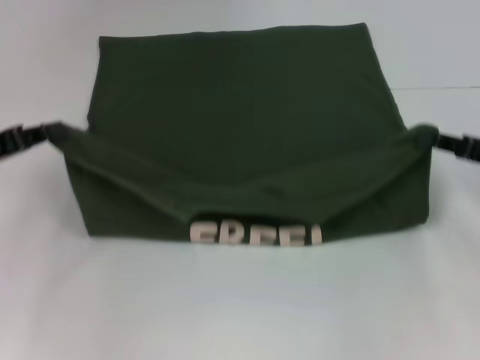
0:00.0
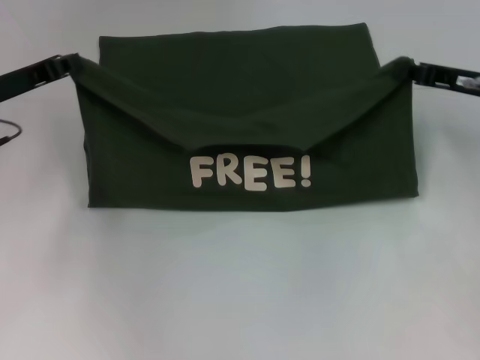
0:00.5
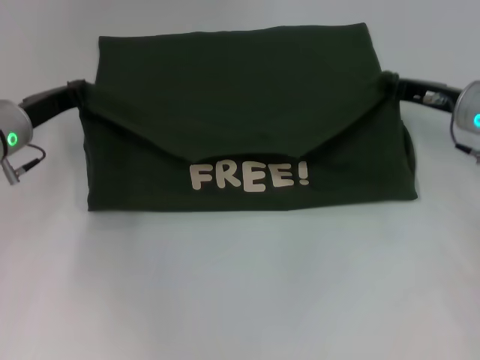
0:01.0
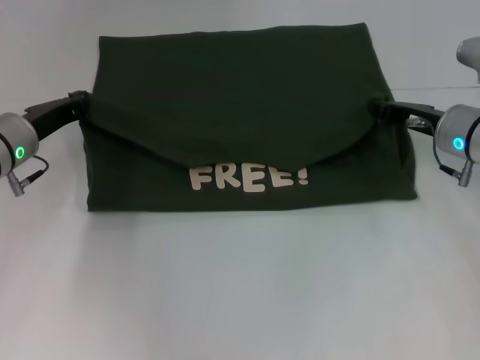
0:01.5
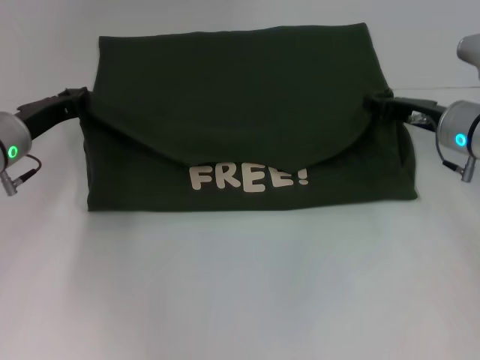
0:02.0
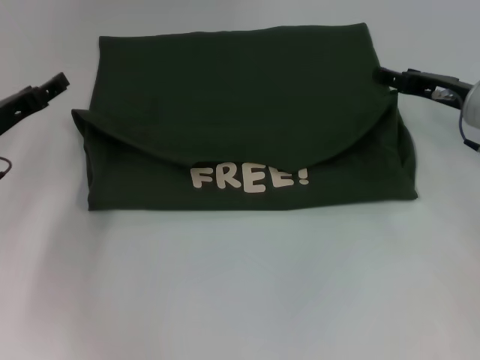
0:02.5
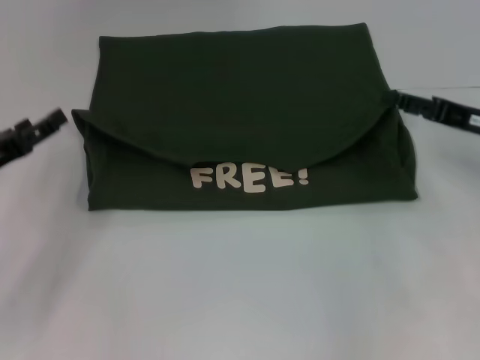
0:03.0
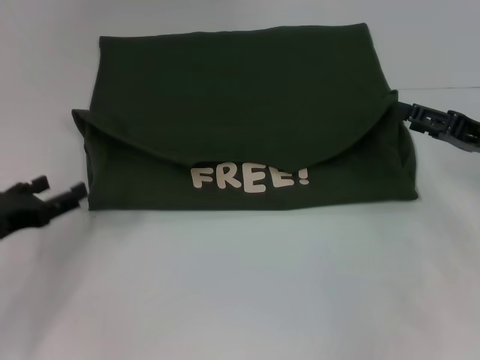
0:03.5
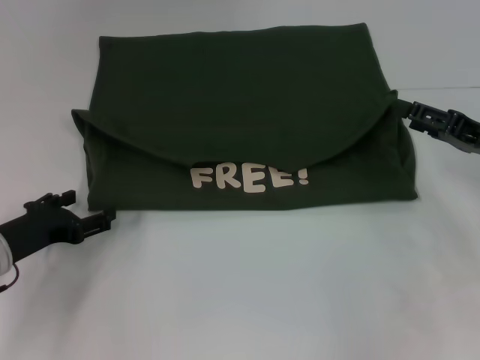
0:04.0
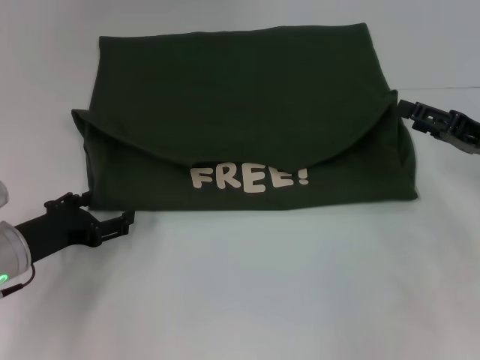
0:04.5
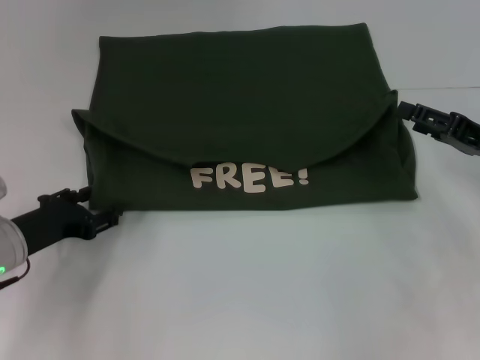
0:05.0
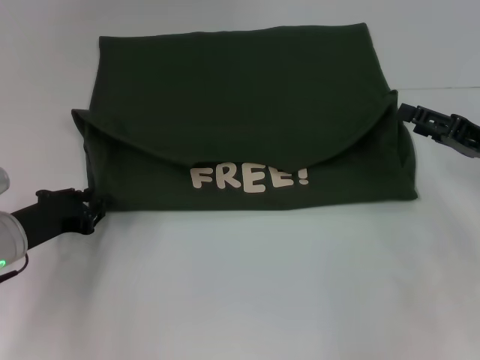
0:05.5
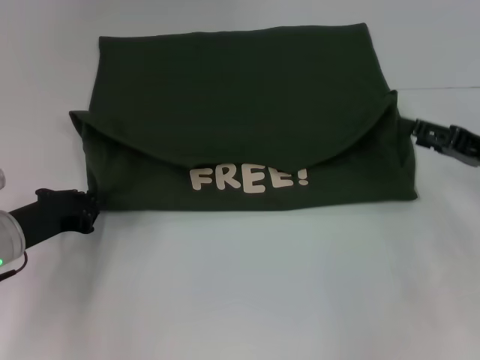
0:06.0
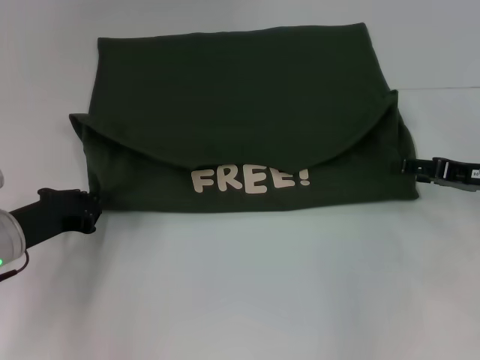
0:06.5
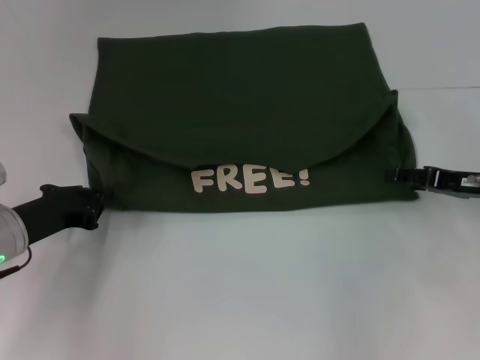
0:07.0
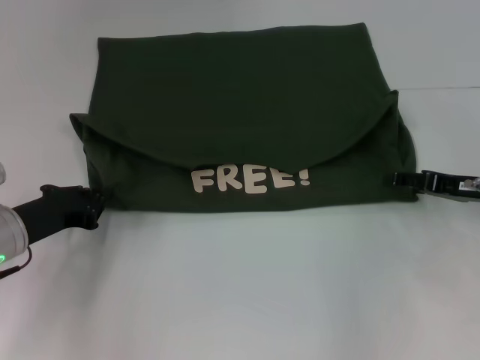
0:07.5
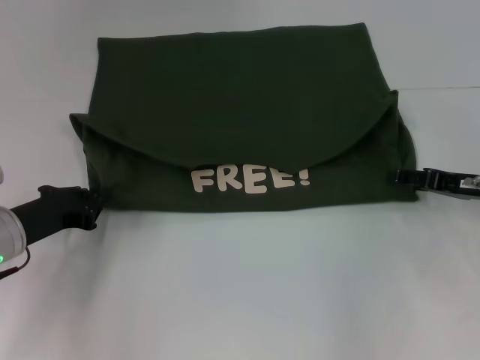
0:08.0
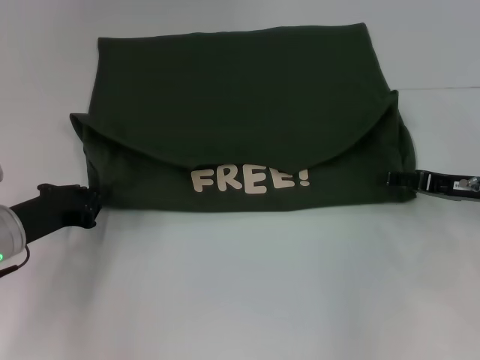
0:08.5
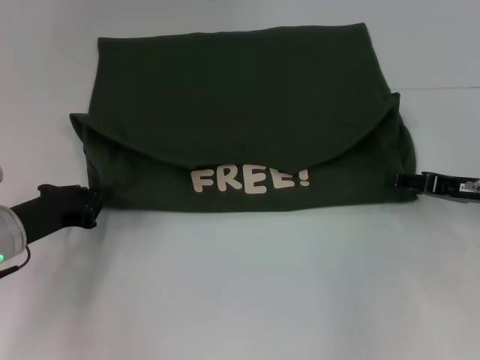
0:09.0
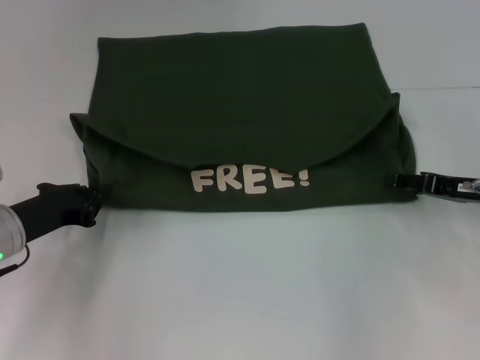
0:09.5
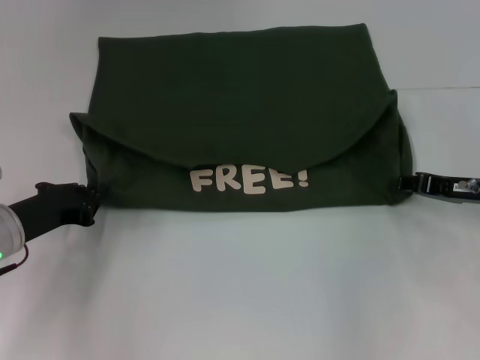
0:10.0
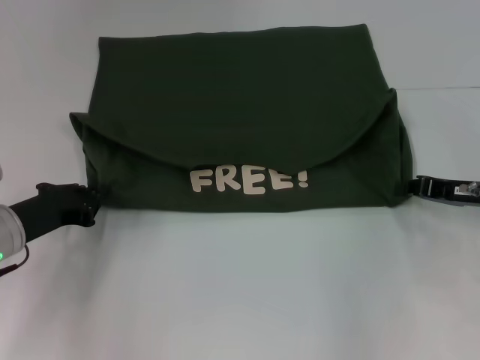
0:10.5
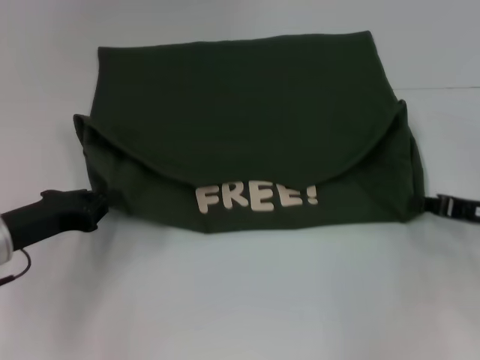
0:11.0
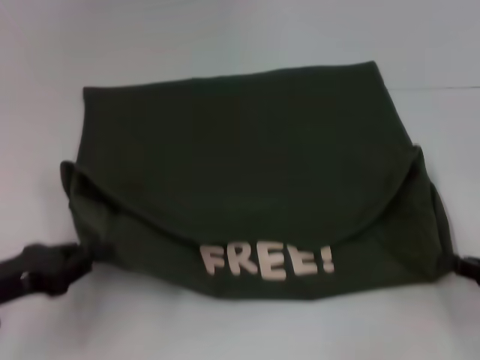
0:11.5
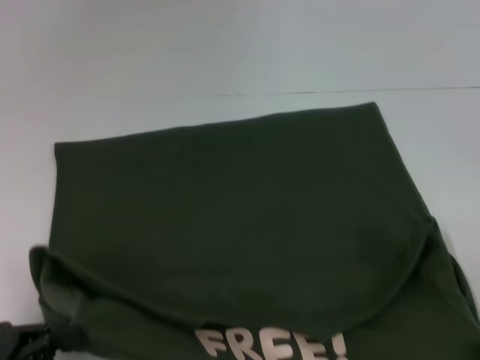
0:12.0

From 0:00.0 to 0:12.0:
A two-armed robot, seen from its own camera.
Step, from 0:00.0 to 0:02.0: Fold the clothes with your left hand.
Step, from 0:00.0 to 0:02.0: Fold the clothes with your right hand.
From 0:00.0 to 0:02.0: The left gripper moves forward and to the right, about 10 cm. Meanwhile the right gripper goes some 10 cm forward and to the left.
From 0:02.0 to 0:04.0: The left gripper goes approximately 10 cm backward, and opens its fingers; the right gripper shifts approximately 10 cm backward and to the right, and opens up.
From 0:04.0 to 0:06.0: The left gripper closes up.
From 0:06.0 to 0:08.0: The grippers move only a little.
From 0:08.0 to 0:10.0: The right gripper closes its fingers.
From 0:10.0 to 0:12.0: Both grippers travel together backward, some 20 cm. The right gripper closes.

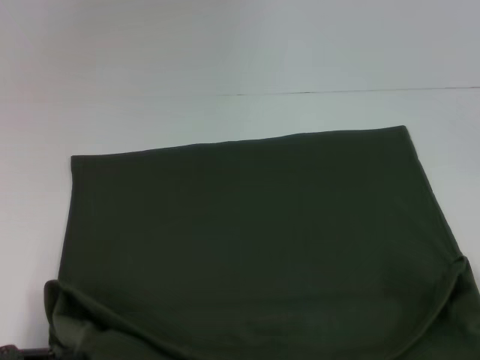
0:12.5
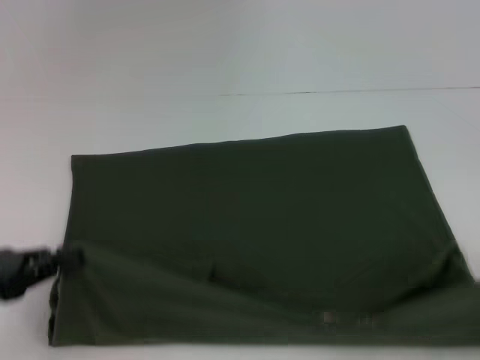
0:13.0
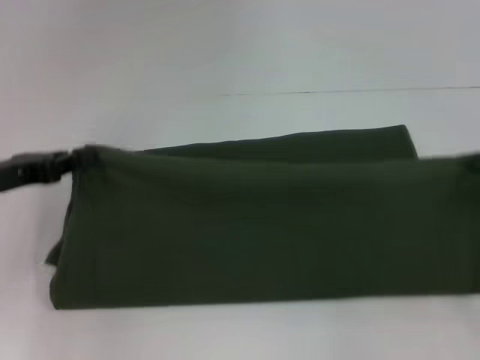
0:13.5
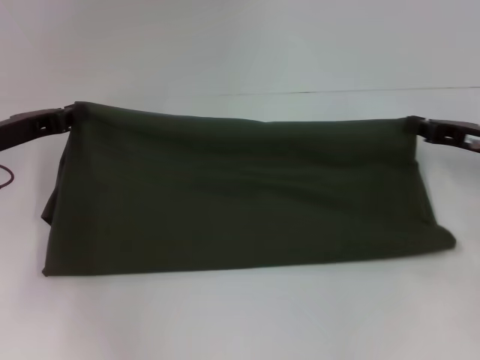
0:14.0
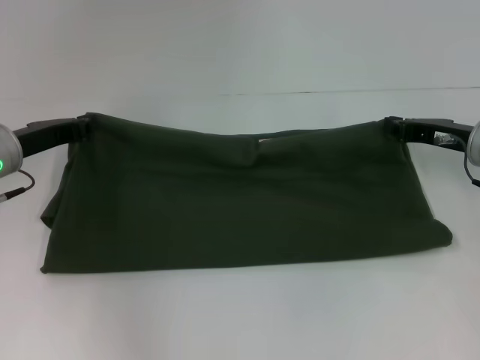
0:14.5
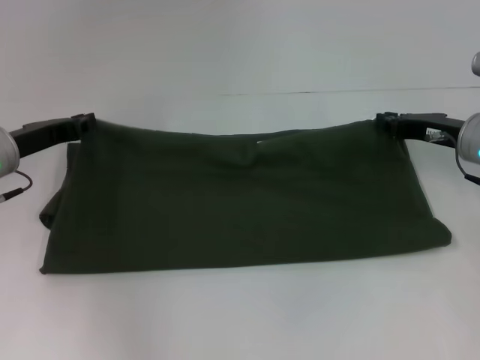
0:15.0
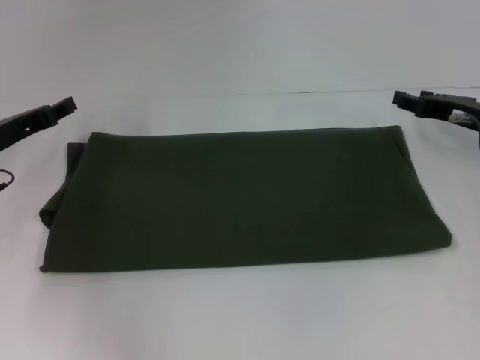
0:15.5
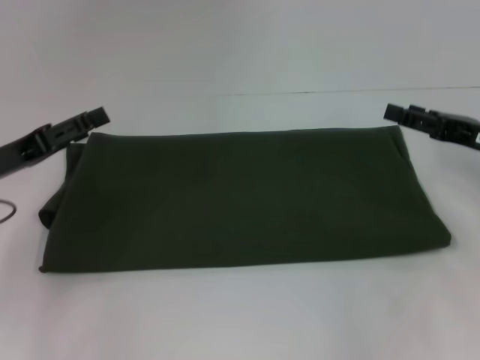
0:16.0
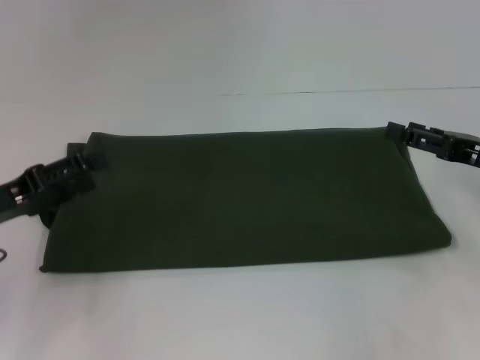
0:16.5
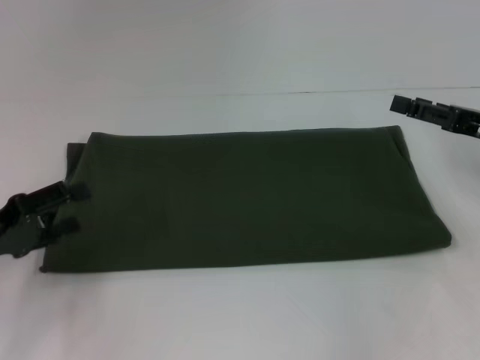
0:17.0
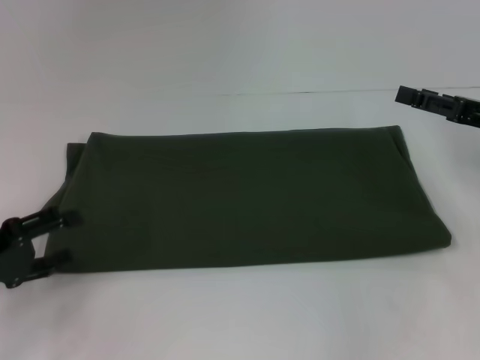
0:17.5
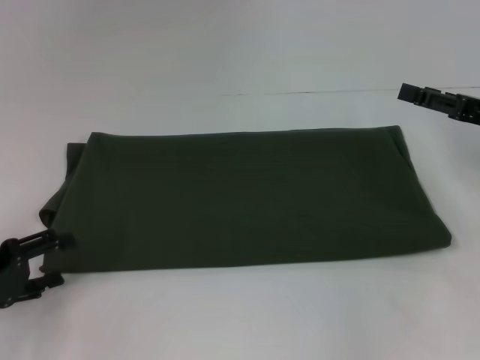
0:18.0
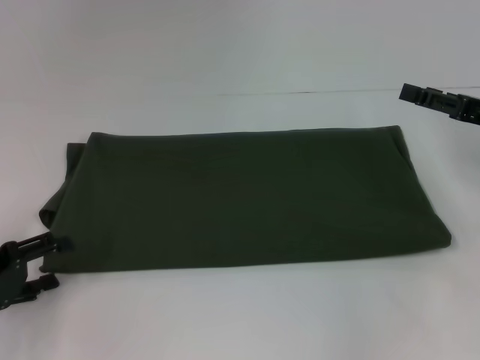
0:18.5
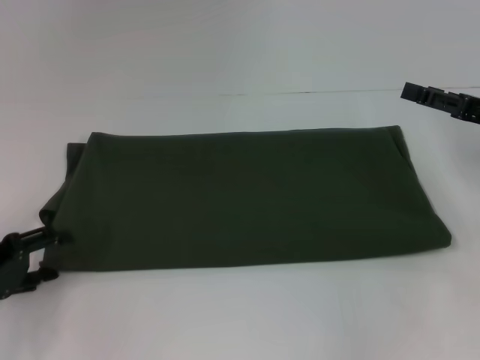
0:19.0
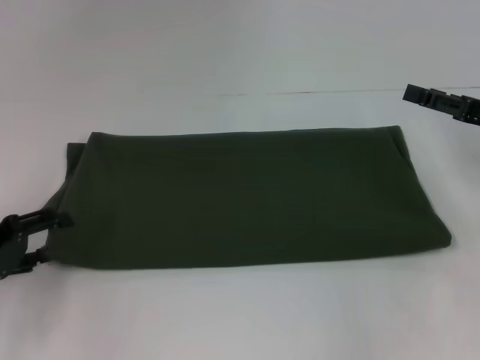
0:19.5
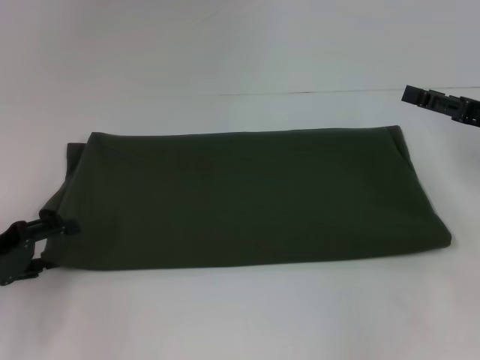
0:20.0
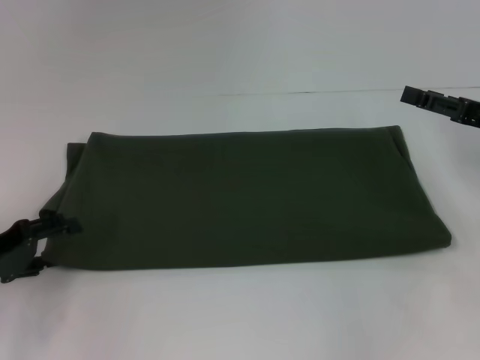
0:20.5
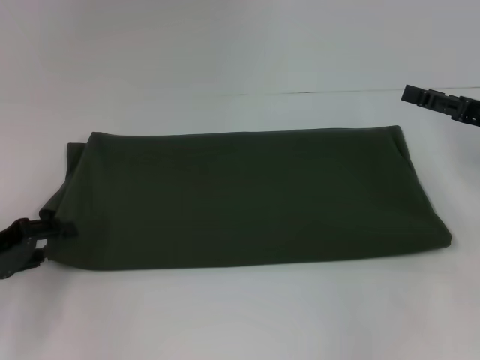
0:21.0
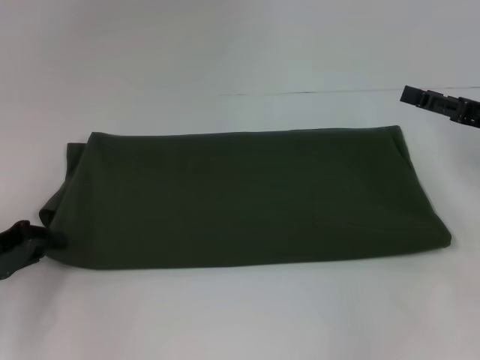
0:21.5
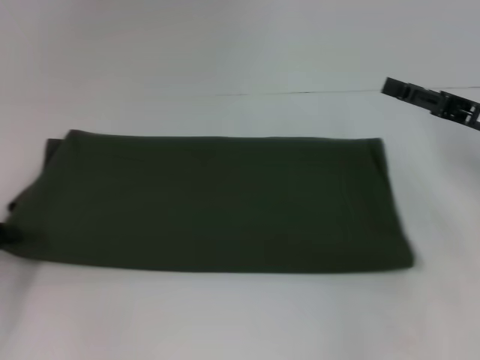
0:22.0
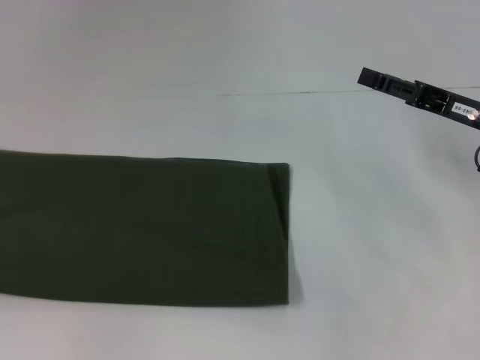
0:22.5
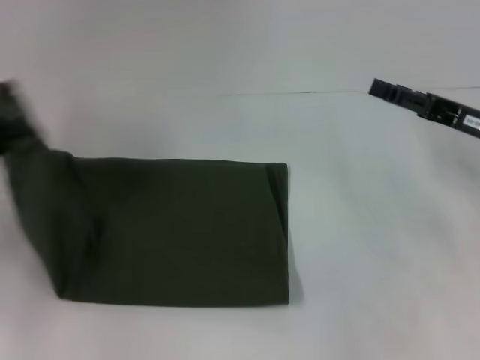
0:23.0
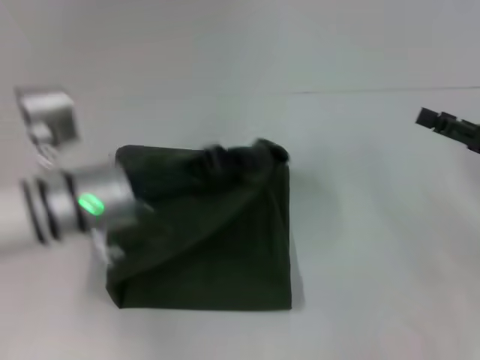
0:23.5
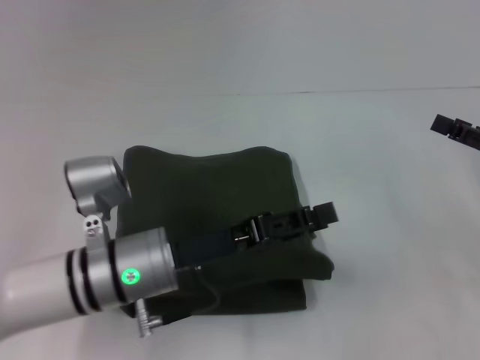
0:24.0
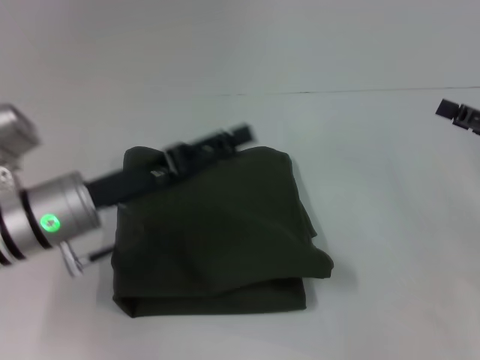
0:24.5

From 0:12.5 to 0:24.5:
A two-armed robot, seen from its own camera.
Step, from 0:12.5 to 0:15.0: Fold the clothes with your right hand.
Step, from 0:12.5 to 0:24.0: Fold the clothes with your left hand.
From 0:12.5 to 0:14.5: Both grippers move forward, some 30 cm.
From 0:14.5 to 0:16.5: The two grippers go some 10 cm backward. The left gripper opens. The right gripper opens up.
From 0:16.5 to 0:18.5: The left gripper changes place by roughly 5 cm.
From 0:18.5 to 0:20.5: The grippers make only small movements.
From 0:20.5 to 0:22.5: The left gripper travels to the left by about 15 cm, and closes its fingers.
From 0:22.5 to 0:24.5: The left gripper moves to the right, about 30 cm, and opens up. The right gripper heads to the right, covering about 5 cm.

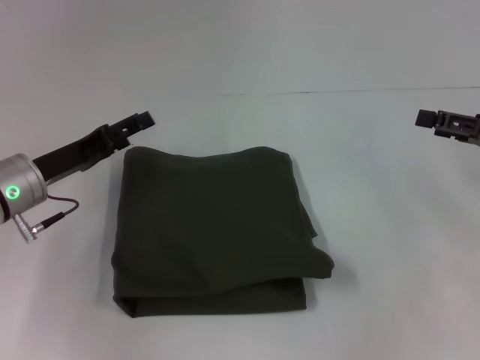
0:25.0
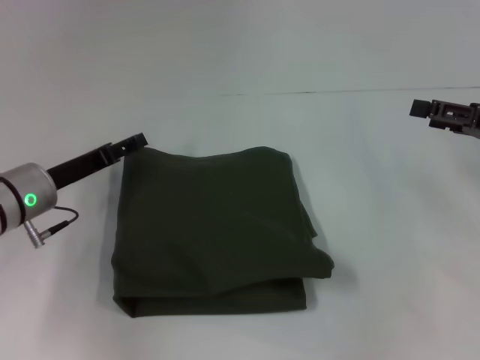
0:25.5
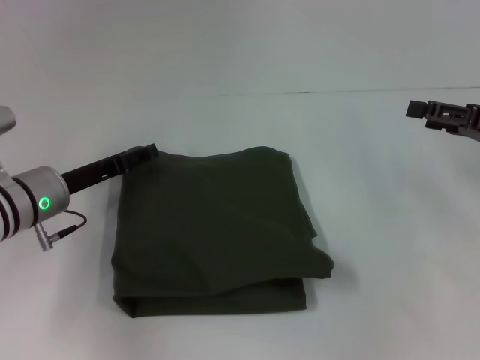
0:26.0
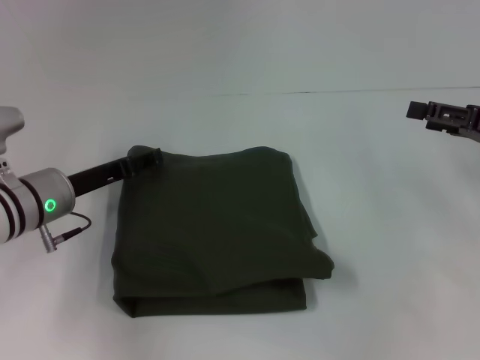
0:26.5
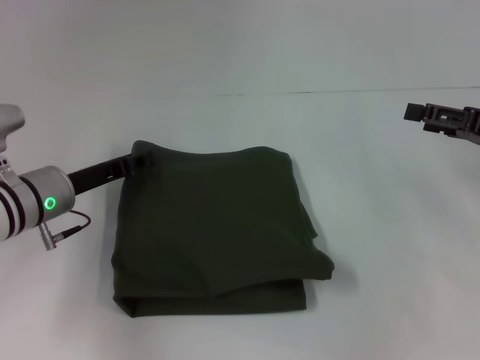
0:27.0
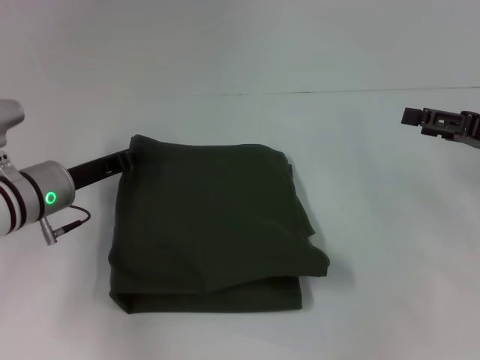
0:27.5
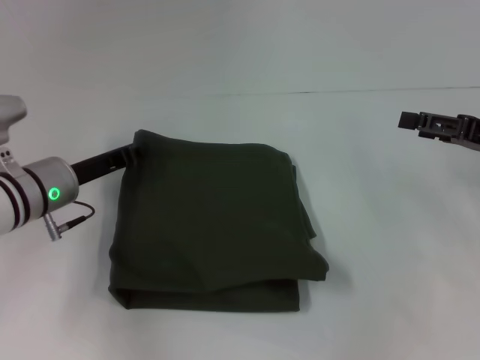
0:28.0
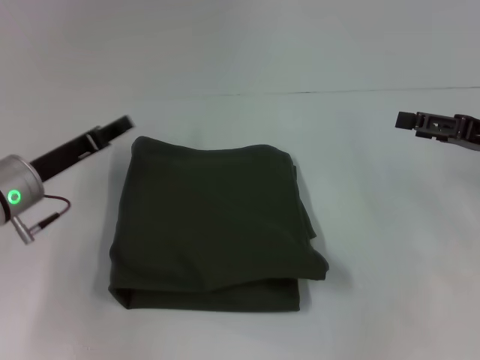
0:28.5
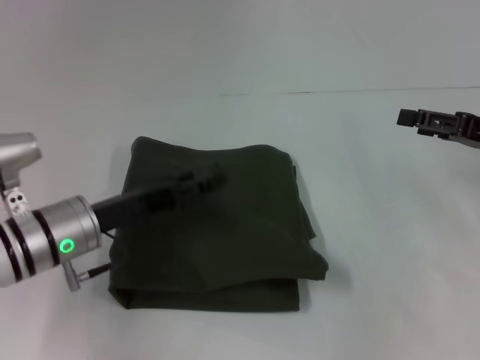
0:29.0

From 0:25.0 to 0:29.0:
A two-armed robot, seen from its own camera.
From 0:25.0 to 0:27.0: The left gripper closes.
From 0:27.0 to 0:29.0: The left gripper moves some 5 cm, and closes, then reopens.
